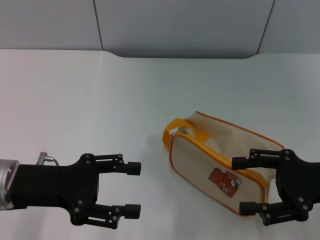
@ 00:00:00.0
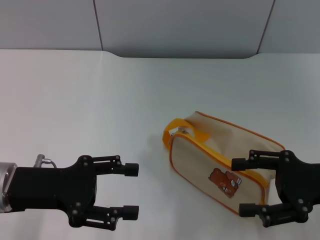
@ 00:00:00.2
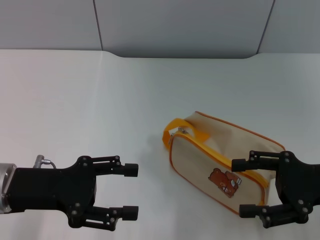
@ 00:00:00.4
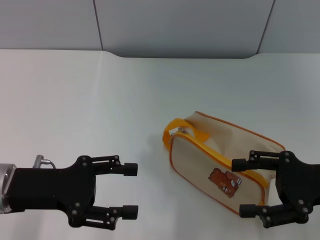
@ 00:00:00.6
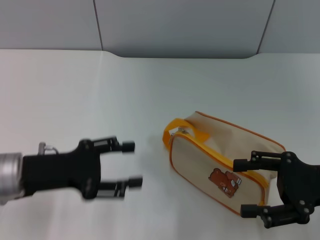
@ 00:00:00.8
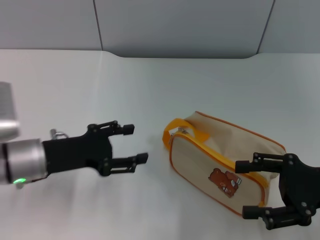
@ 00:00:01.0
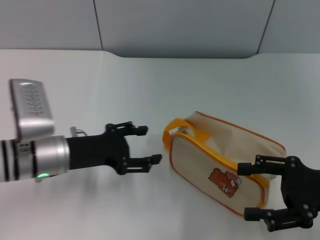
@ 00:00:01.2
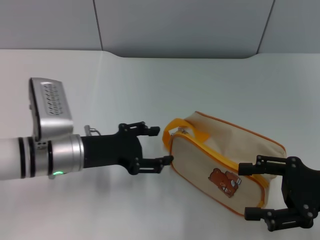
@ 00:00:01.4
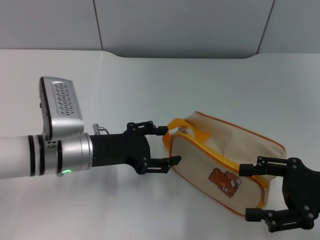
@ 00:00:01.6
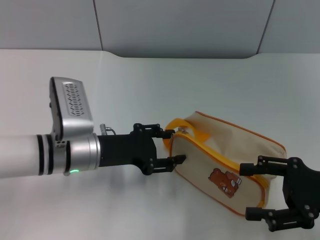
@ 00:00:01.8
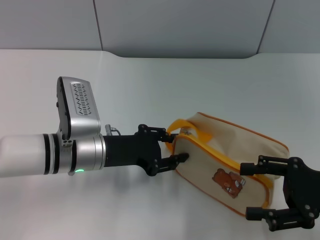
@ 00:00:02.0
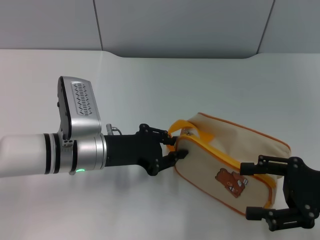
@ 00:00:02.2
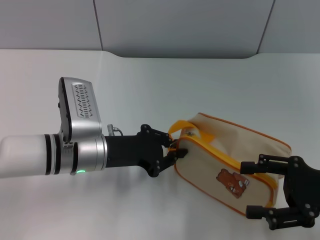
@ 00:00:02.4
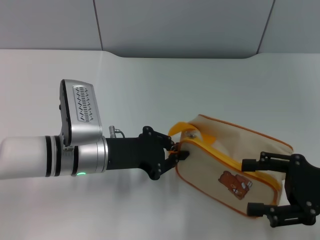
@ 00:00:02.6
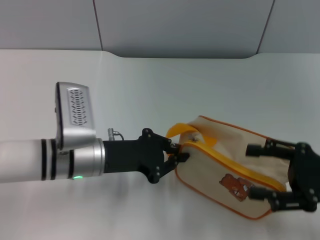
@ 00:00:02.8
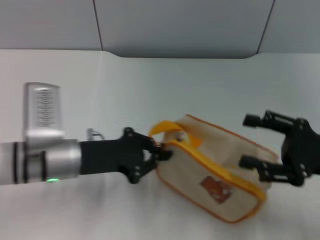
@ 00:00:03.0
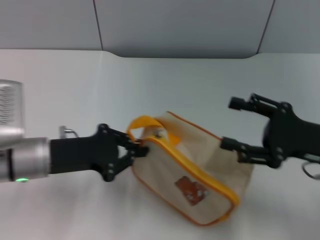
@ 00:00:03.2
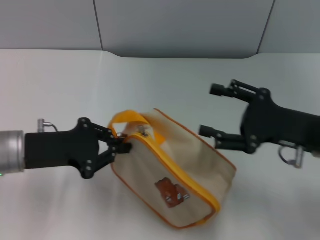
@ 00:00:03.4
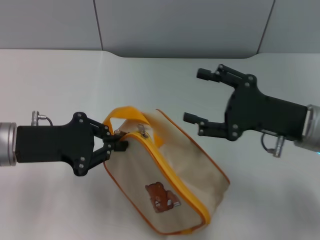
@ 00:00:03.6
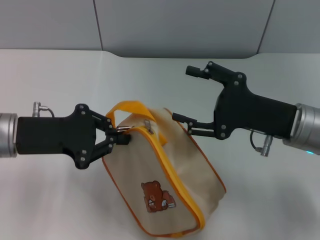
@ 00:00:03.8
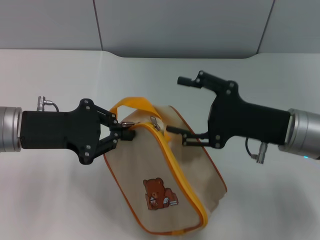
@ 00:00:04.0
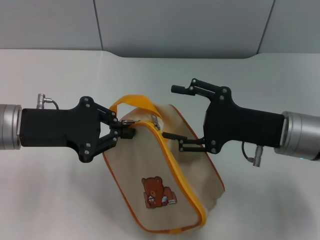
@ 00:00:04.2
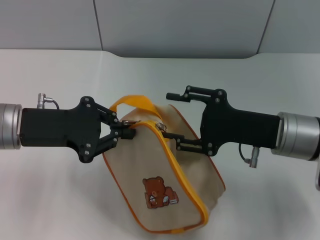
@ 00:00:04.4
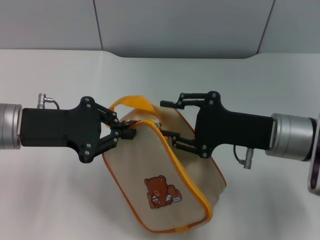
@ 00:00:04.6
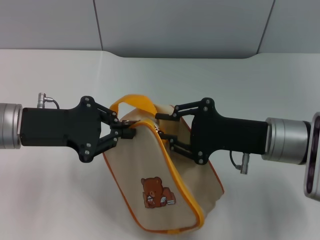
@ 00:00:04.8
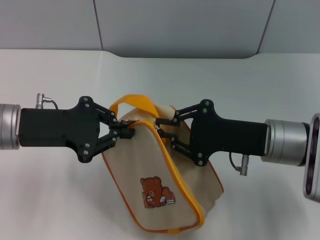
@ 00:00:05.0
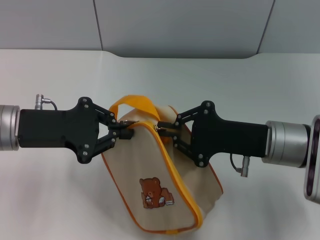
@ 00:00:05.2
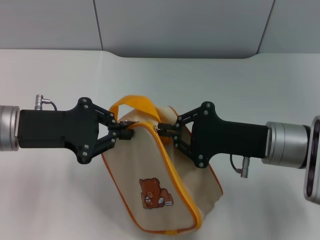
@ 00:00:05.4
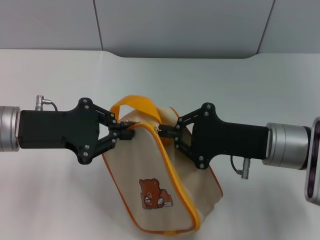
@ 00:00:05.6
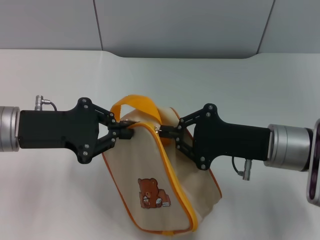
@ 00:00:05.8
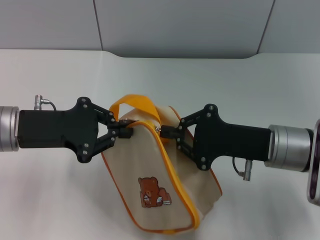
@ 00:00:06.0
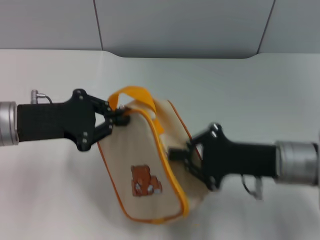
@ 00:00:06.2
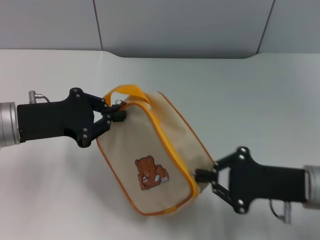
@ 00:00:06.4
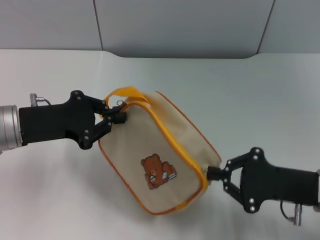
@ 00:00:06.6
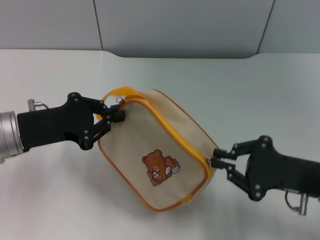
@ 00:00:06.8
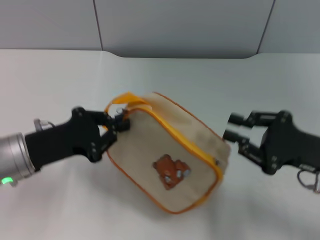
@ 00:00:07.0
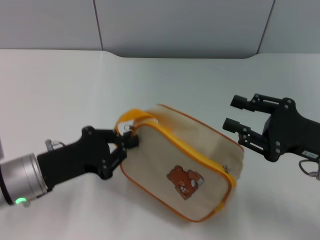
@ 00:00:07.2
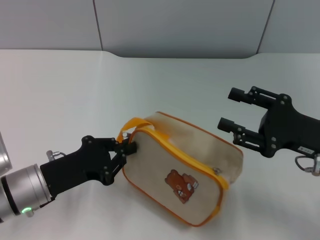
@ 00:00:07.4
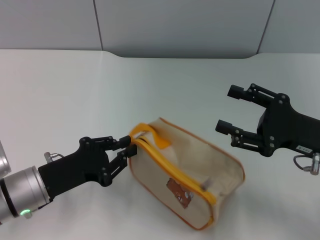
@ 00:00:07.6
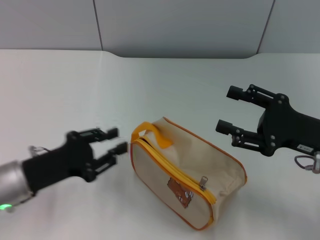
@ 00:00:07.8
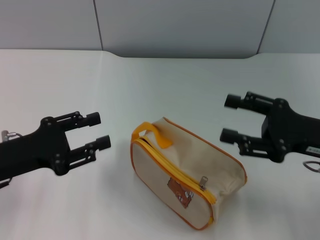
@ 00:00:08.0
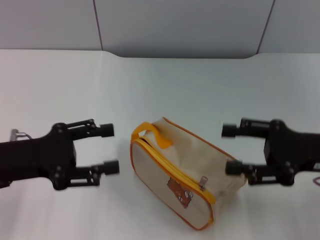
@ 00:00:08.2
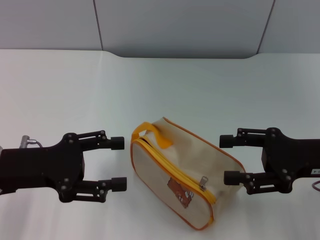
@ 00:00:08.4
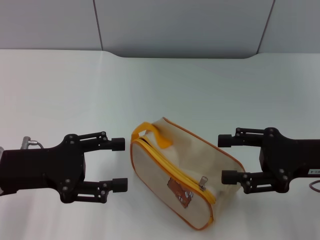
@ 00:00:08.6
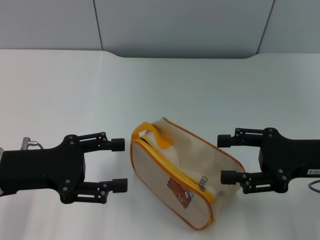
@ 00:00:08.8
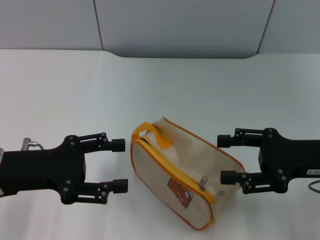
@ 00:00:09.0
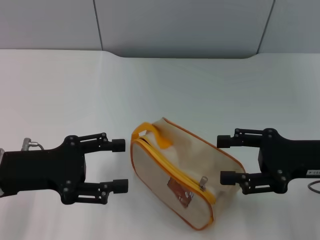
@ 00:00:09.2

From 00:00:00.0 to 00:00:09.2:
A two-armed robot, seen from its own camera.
Step, from 00:00:00.0 to 00:00:03.4: Pick up the bag with left gripper.
Step, from 00:00:03.6 to 00:00:06.8: Unzip the zipper of bag with right gripper.
Step, from 00:00:07.0 to 00:00:07.6: Place the bag on the table with left gripper.
From 00:00:00.0 to 00:00:01.6: The left gripper goes about 10 cm to the right and forward.
From 00:00:01.6 to 00:00:03.0: The left gripper closes.
From 00:00:03.0 to 00:00:04.6: The left gripper moves upward and to the left, about 10 cm. Meanwhile the right gripper travels to the left and forward by approximately 10 cm.
From 00:00:04.6 to 00:00:06.2: The right gripper closes up.
From 00:00:06.2 to 00:00:07.6: The right gripper moves to the right, roughly 5 cm, and opens; the left gripper moves downward and backward, some 10 cm.
From 00:00:07.6 to 00:00:09.2: The left gripper travels upward by approximately 5 cm, and opens.
